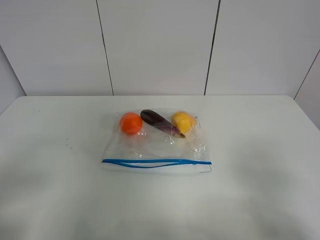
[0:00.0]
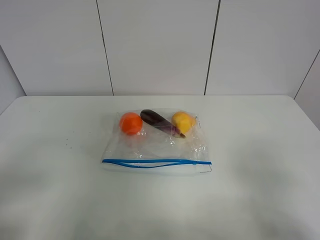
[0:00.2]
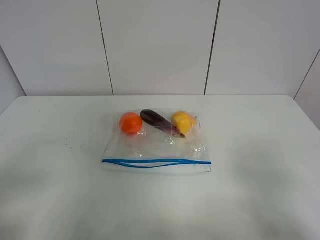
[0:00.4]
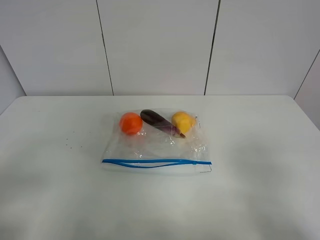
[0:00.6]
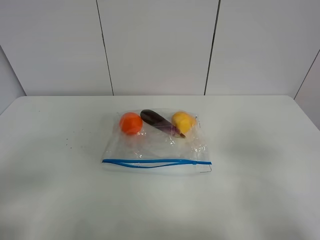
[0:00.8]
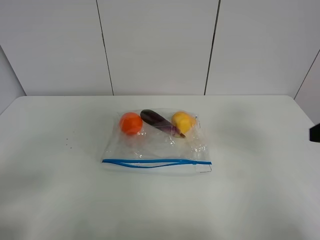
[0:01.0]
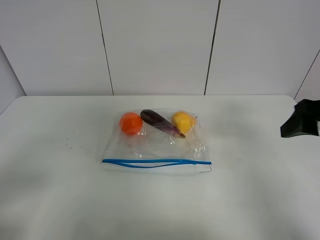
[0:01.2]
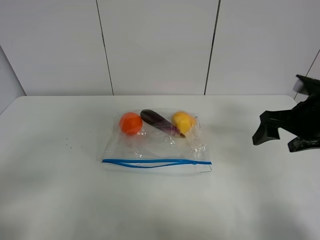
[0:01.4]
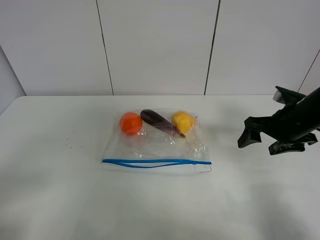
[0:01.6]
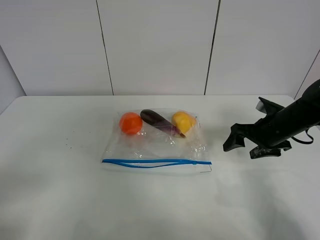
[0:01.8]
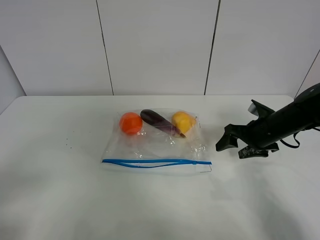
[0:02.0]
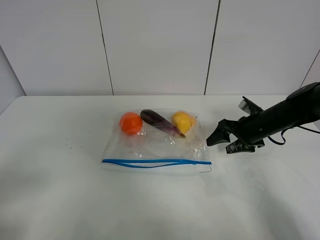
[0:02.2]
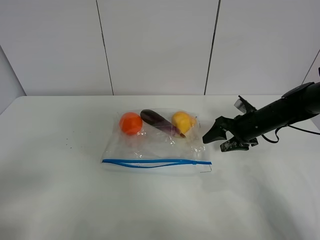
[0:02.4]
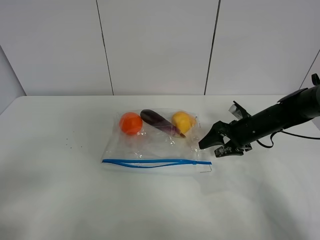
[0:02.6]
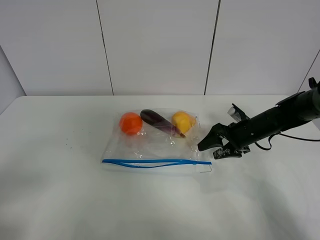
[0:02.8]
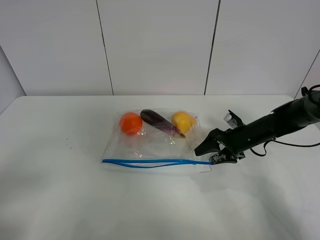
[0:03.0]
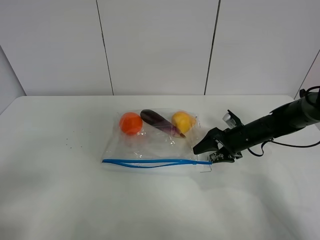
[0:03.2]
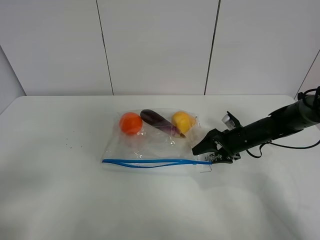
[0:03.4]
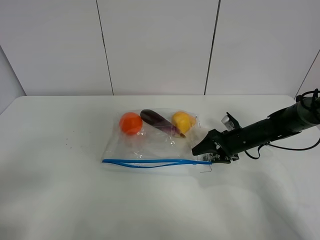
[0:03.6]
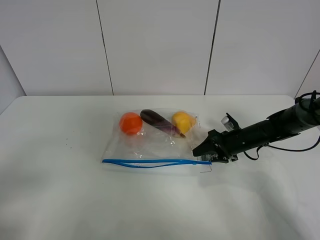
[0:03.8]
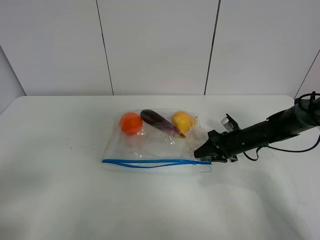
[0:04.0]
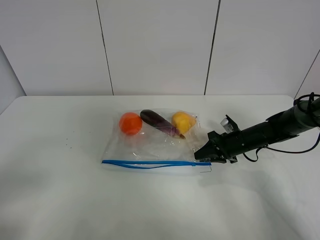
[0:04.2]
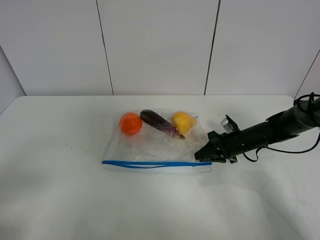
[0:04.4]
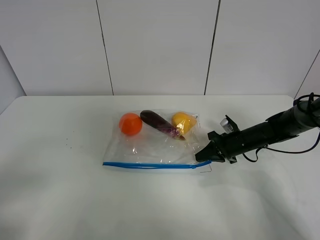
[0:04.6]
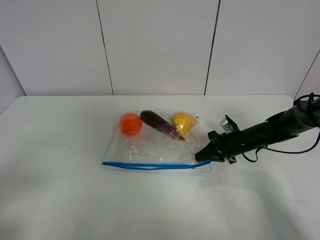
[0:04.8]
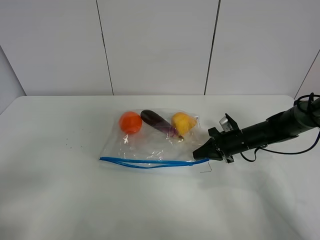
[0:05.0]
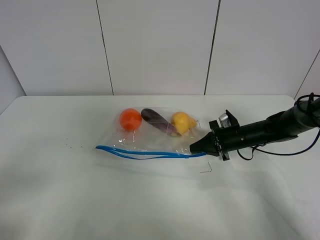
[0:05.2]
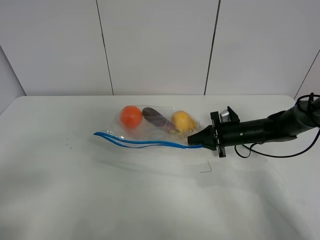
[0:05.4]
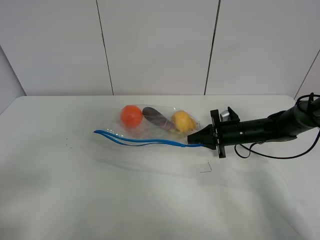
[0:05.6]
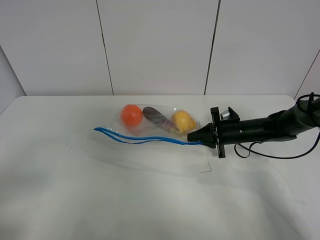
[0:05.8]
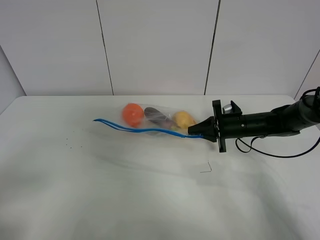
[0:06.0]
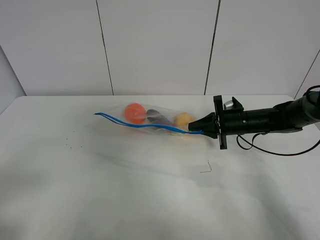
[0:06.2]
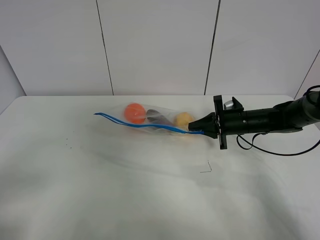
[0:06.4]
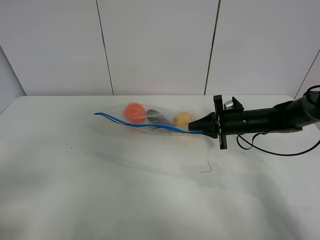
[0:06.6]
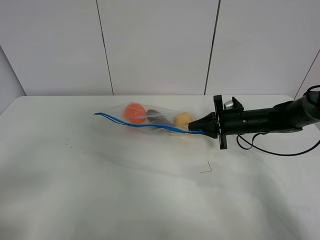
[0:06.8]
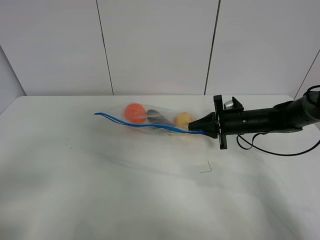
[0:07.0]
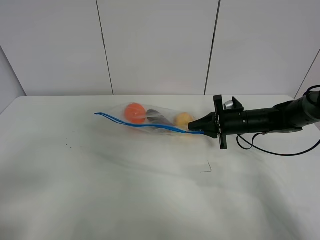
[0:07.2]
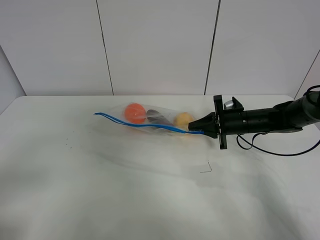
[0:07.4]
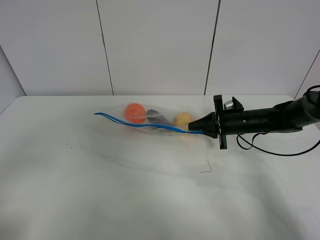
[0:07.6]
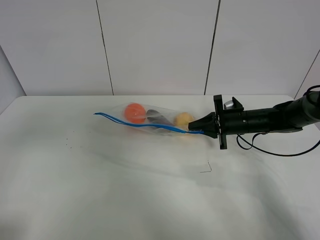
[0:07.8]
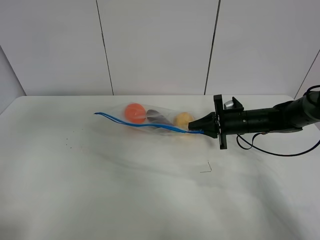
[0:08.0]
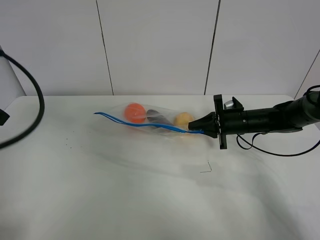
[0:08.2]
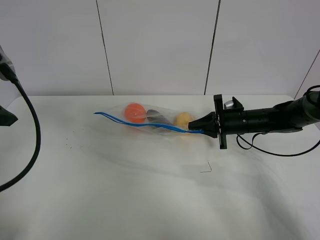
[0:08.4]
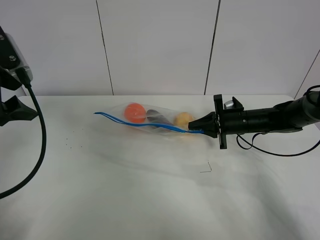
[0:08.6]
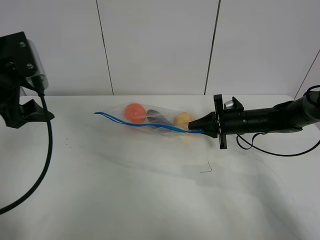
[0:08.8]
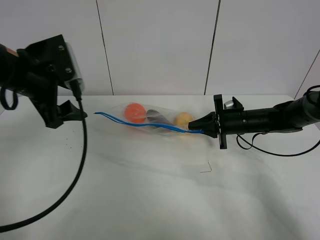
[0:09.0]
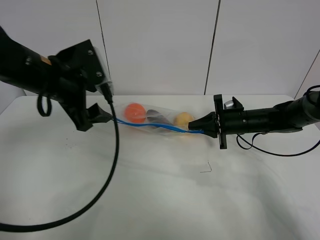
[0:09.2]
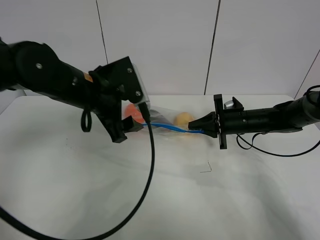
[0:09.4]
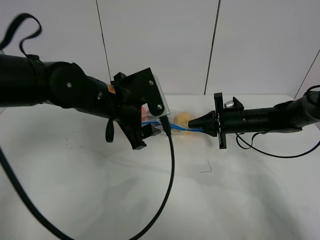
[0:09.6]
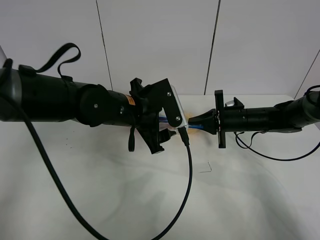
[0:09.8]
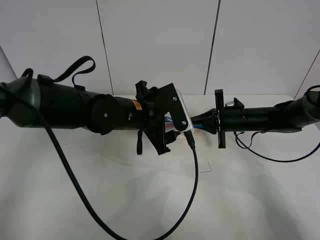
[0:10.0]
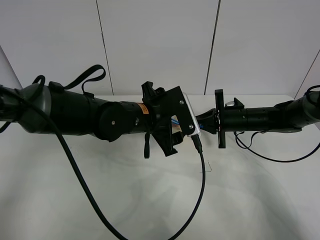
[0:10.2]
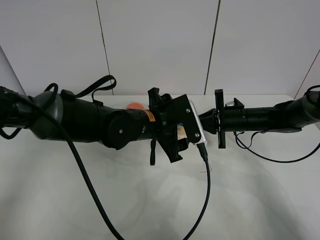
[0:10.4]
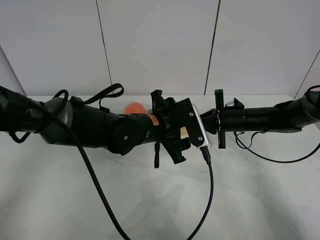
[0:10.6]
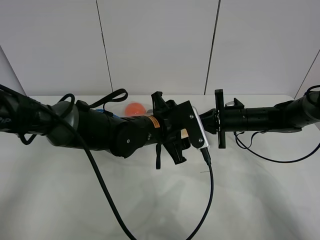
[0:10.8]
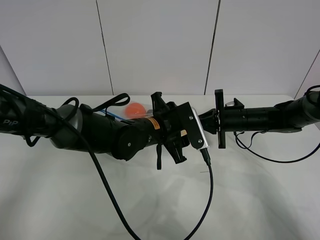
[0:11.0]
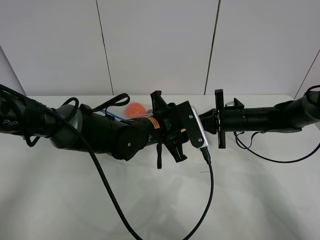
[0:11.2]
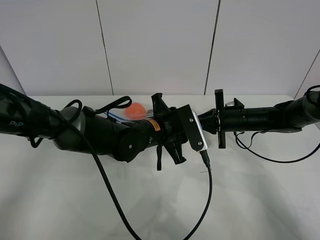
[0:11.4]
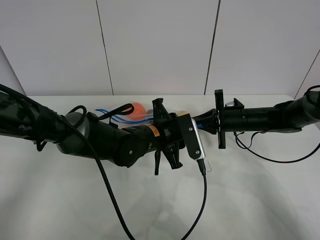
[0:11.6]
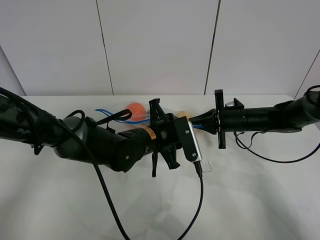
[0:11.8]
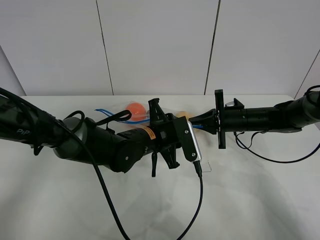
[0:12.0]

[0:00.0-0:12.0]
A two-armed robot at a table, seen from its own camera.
Step, 0:00.0 to 0:04.6: Grasp the fruit bag with right gripper.
Step, 0:04.8 to 0:06.6: Lift the fruit bag with your right gripper.
0:00.0 to 0:01.6: The right gripper is displaced forward by some 30 cm.
0:01.6 to 0:03.0: The right gripper heads downward and forward, covering roughly 15 cm.
0:03.0 to 0:04.4: The right gripper closes.
0:04.4 to 0:06.0: The right gripper heads upward, covering some 5 cm.
0:06.0 to 0:07.6: The left gripper heads upward, covering about 5 cm.
0:07.6 to 0:09.0: The left gripper is displaced forward by about 25 cm.
0:09.0 to 0:10.4: The left gripper heads to the right and downward, covering some 20 cm.
0:10.4 to 0:12.0: The left gripper closes.

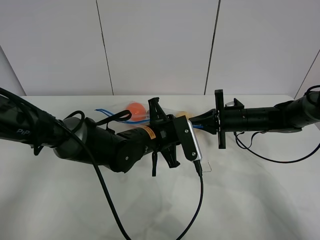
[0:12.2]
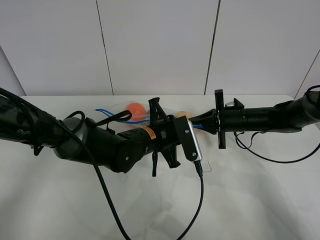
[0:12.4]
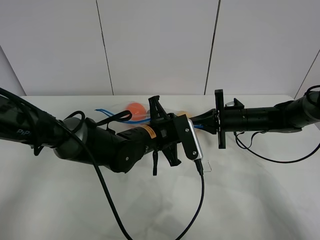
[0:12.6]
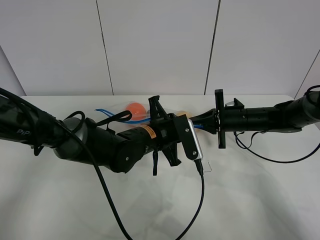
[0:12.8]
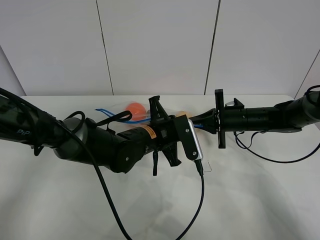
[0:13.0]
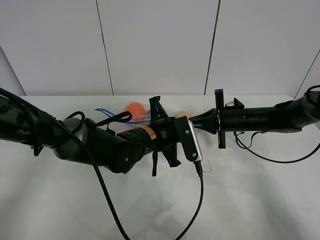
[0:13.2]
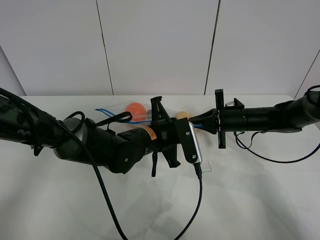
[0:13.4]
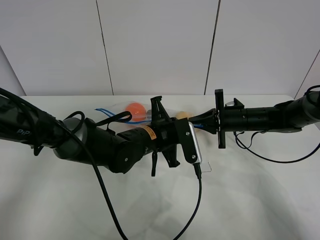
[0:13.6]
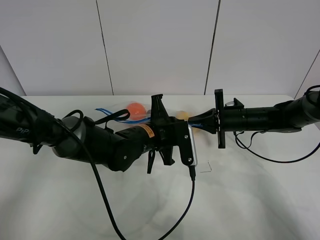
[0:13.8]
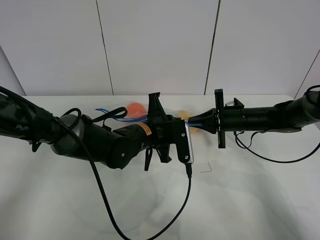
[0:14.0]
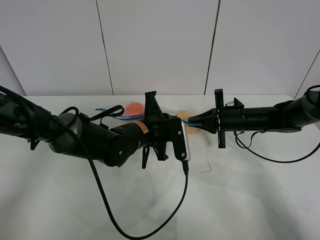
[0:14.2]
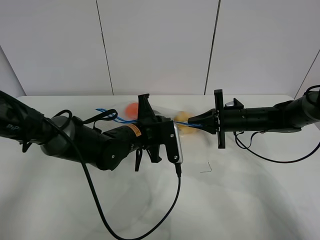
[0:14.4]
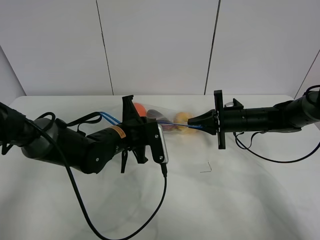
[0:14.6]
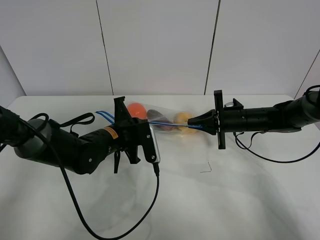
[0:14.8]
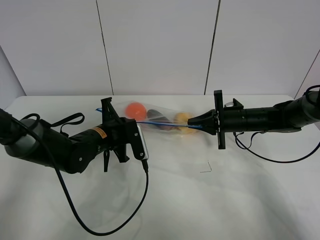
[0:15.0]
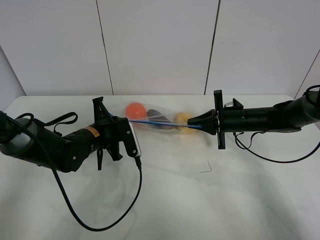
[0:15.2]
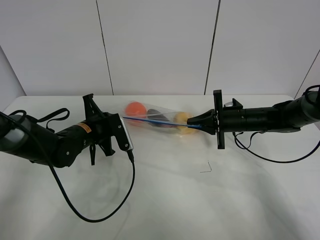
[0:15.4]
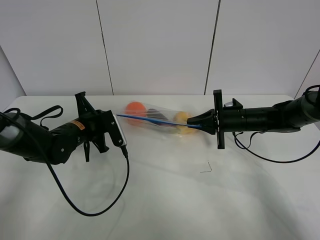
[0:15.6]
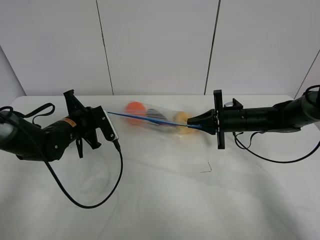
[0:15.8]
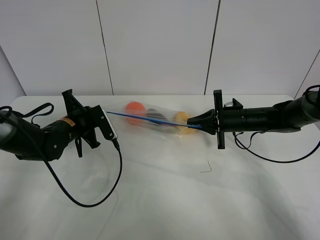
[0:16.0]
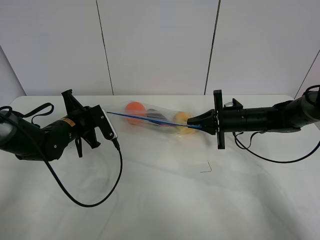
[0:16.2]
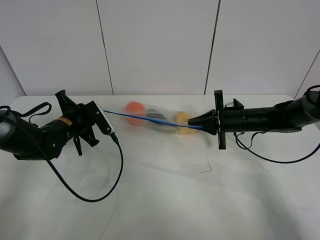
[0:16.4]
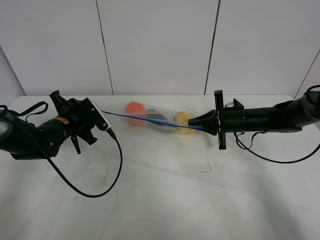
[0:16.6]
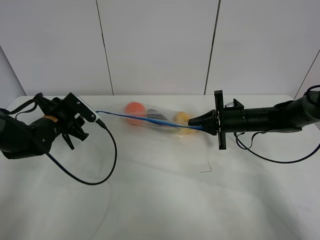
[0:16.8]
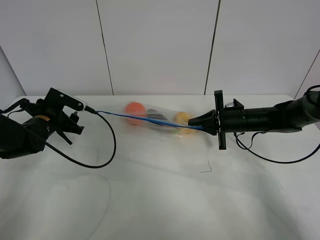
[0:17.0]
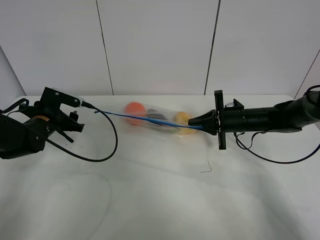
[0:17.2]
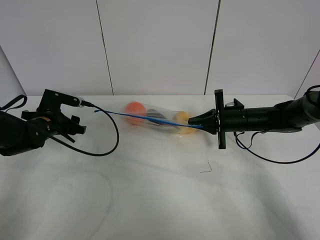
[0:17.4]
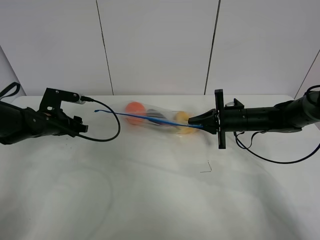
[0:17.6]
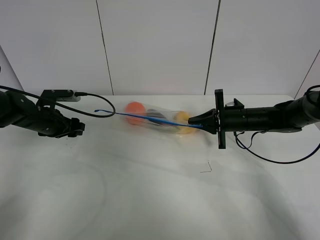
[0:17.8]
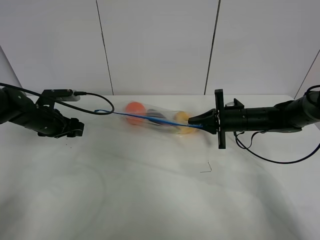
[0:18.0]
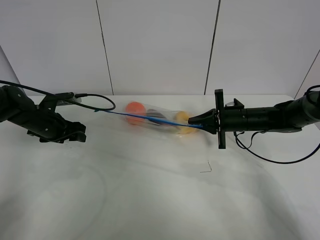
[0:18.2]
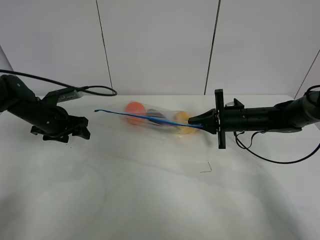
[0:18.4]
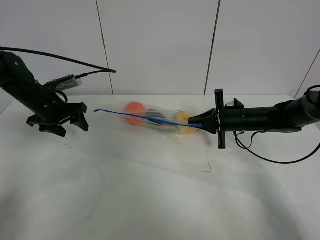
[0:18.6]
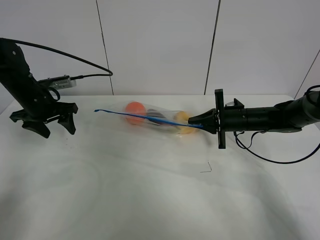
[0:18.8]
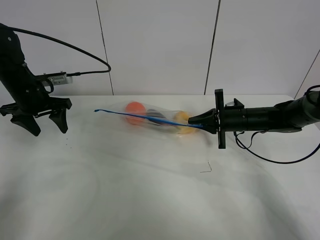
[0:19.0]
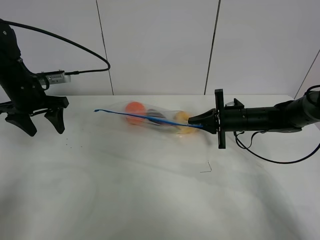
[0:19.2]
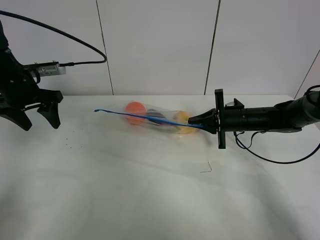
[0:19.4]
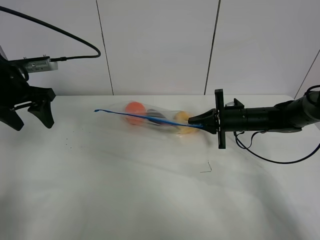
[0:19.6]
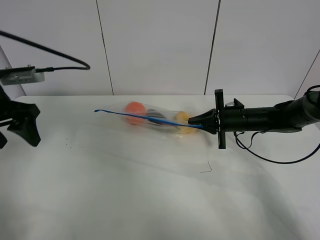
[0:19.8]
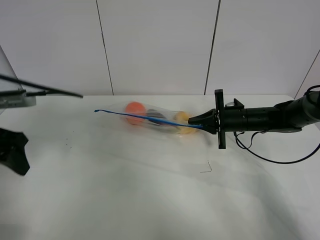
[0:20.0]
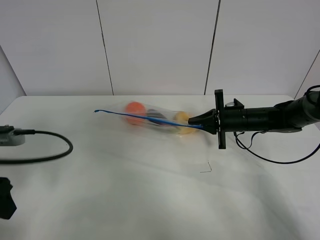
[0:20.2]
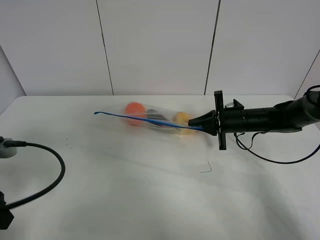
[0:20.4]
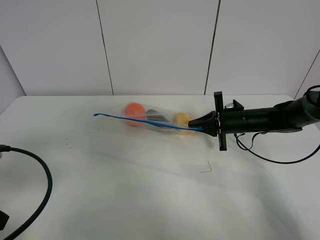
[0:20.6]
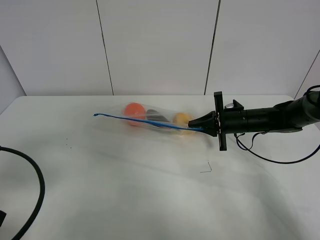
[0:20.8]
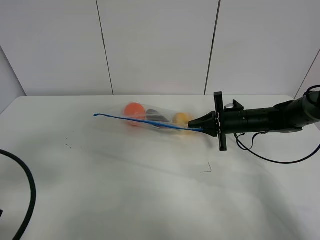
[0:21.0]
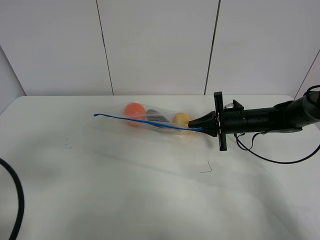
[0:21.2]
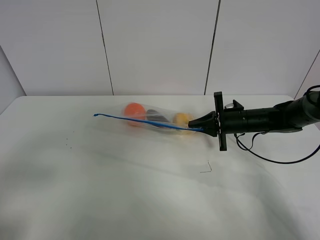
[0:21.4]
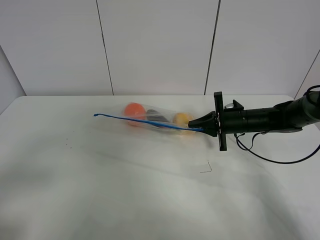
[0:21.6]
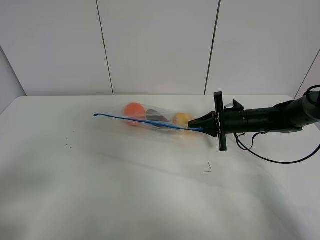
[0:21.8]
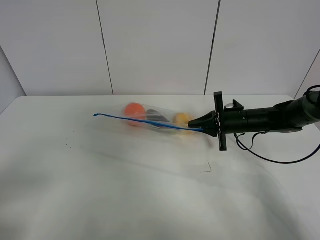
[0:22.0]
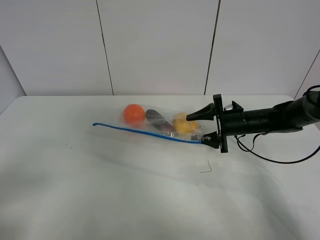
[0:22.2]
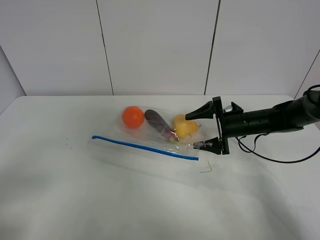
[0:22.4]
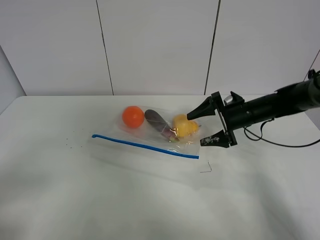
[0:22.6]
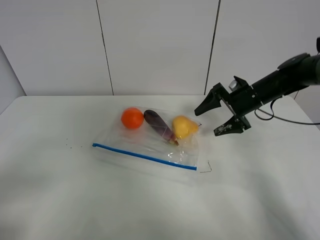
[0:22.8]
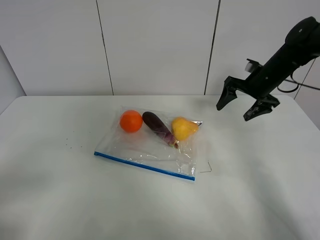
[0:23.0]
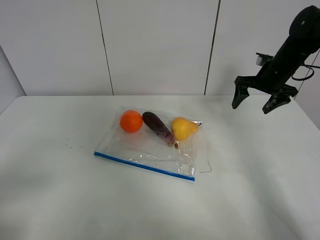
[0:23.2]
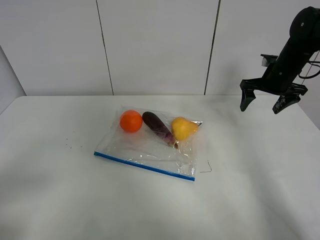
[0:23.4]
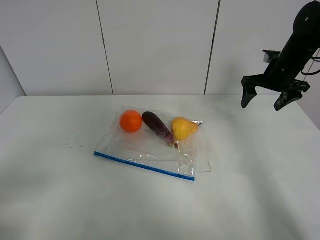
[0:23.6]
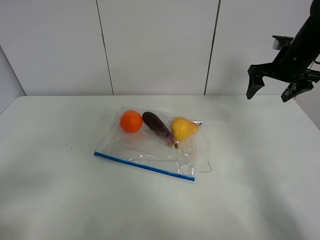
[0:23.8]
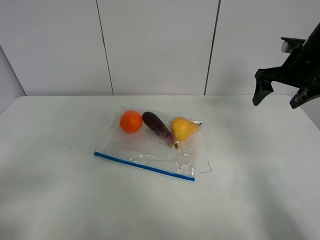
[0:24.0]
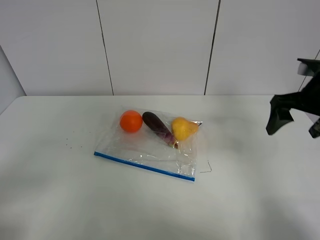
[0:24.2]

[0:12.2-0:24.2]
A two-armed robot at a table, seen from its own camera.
Step, 0:12.2 to 0:16.8: Pull the fruit bag with left gripper.
0:12.2 to 0:13.8: The grippers stay close to where they were, moving slightly.
0:13.8 to 0:15.2: The left gripper moves to the left, some 15 cm.
0:15.2 to 0:16.6: The left gripper goes some 10 cm to the left, and opens its fingers.
0:16.6 to 0:18.2: The left gripper goes about 5 cm to the left.
0:18.2 to 0:19.8: The left gripper goes some 15 cm upward and backward.
0:19.8 to 0:21.2: The left gripper shifts approximately 20 cm backward.
0:21.2 to 0:22.6: The left gripper shifts roughly 5 cm backward. Meanwhile the right gripper opens.
0:22.6 to 0:24.2: The right gripper heads upward, backward and to the right, covering about 20 cm.
